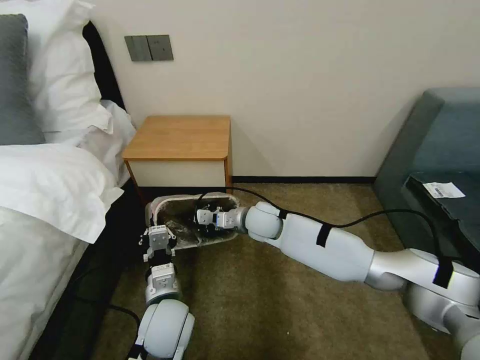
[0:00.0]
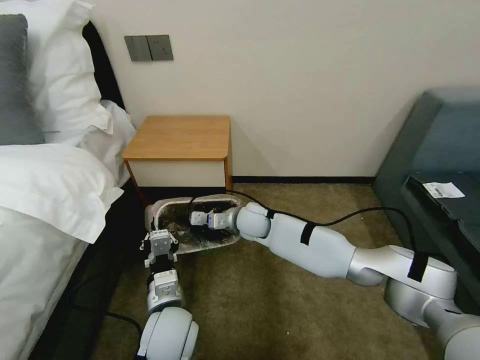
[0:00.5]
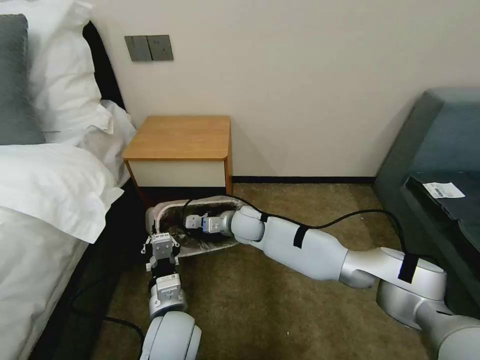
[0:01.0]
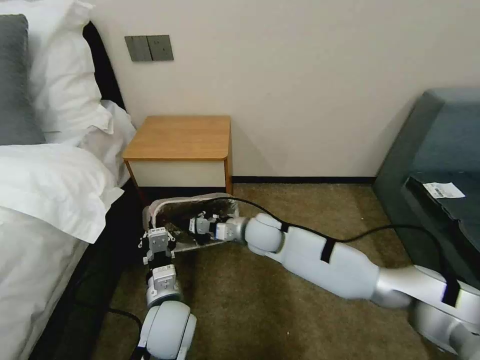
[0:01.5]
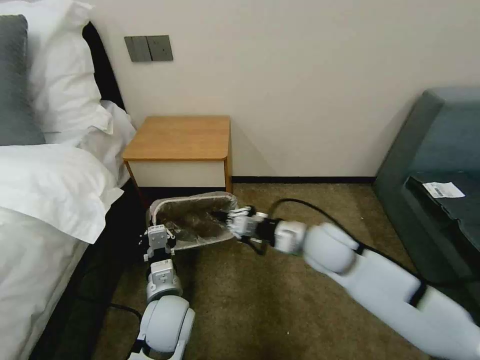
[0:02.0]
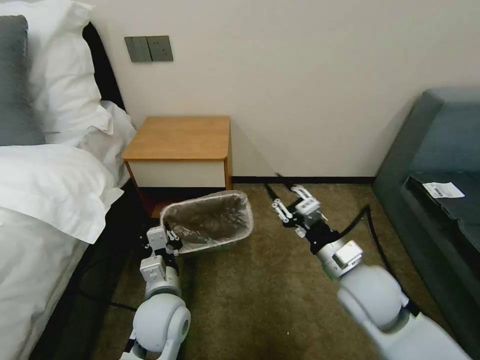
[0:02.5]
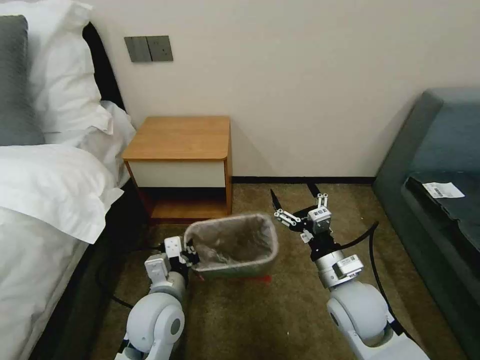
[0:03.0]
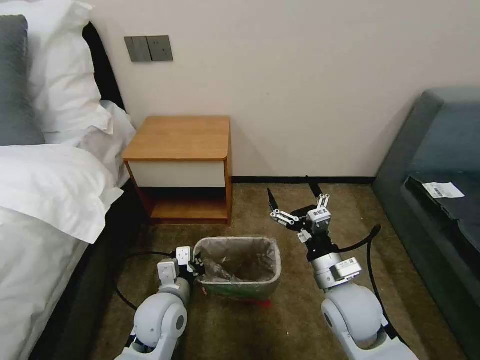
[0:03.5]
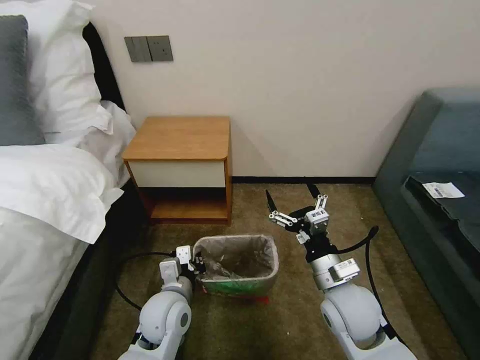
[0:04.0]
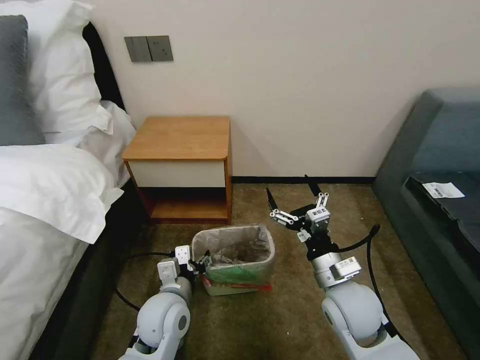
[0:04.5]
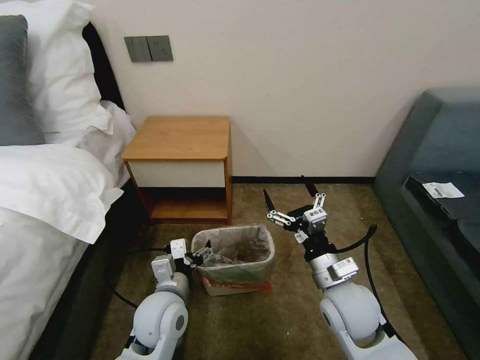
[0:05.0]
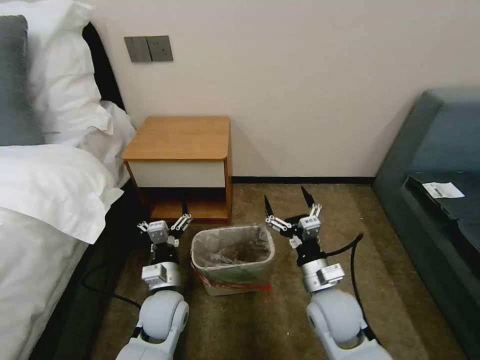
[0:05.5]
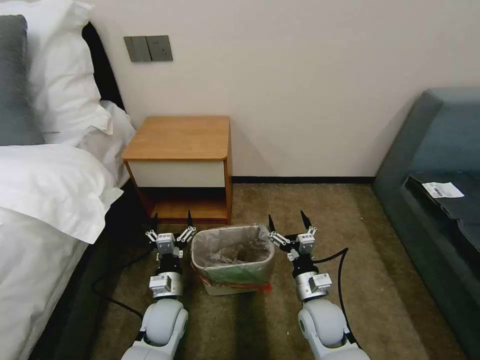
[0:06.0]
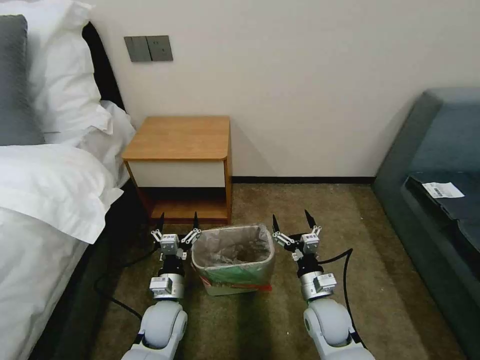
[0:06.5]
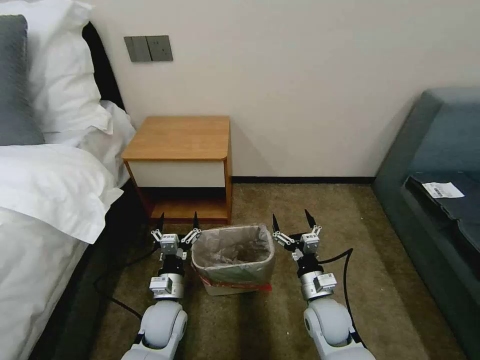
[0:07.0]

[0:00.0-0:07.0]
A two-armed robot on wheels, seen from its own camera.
Task of the whole recording: Pick up the garbage bag from the table and place it over the trash can.
0.0 to 2.0 s: The right gripper moves to the right and backward, some 15 cm.
2.0 to 3.5 s: The right gripper shifts some 10 cm backward, and opens its fingers.
3.5 to 5.0 s: The left gripper opens its fingers.
5.0 to 7.0 s: The grippers both shift downward by roughly 10 cm.

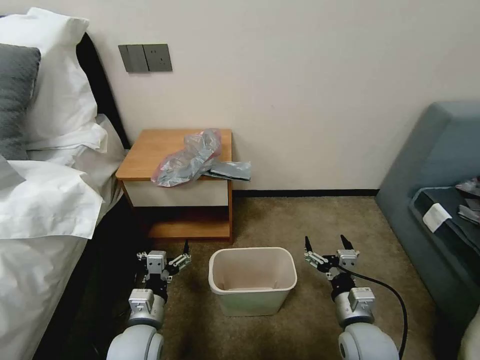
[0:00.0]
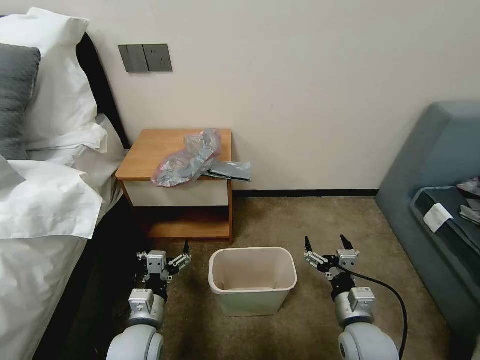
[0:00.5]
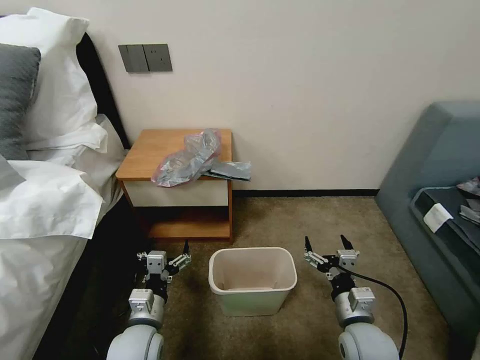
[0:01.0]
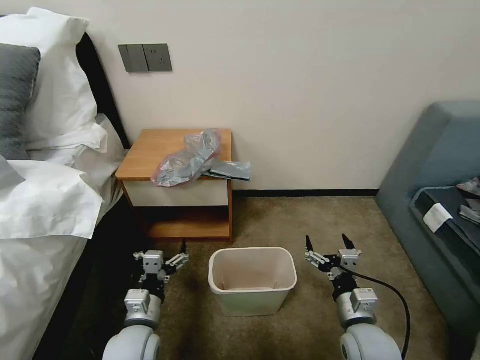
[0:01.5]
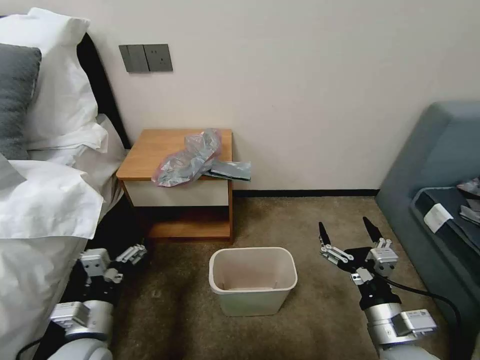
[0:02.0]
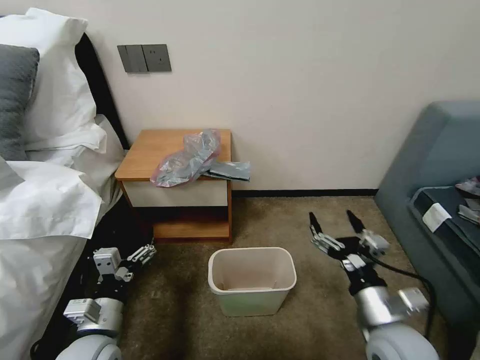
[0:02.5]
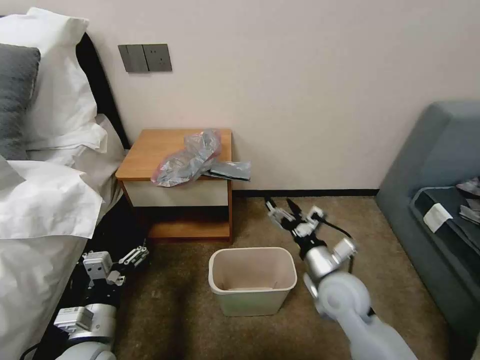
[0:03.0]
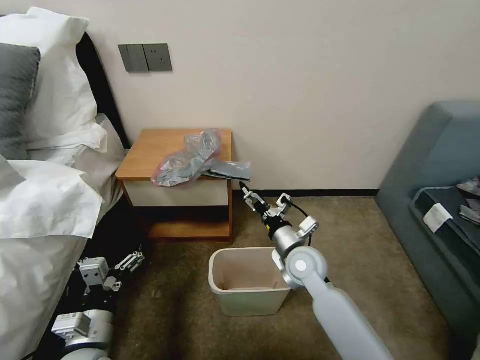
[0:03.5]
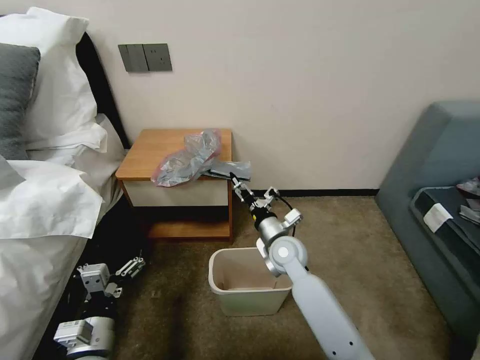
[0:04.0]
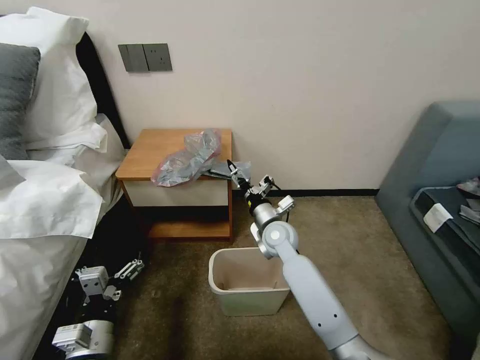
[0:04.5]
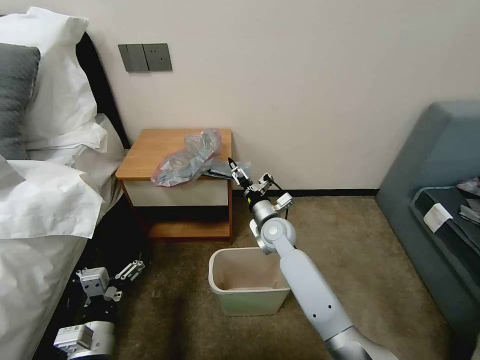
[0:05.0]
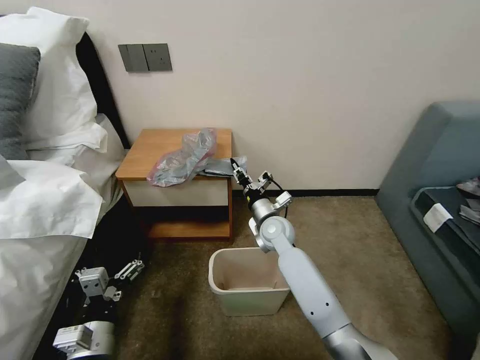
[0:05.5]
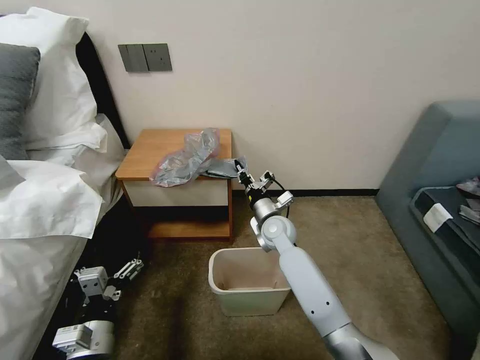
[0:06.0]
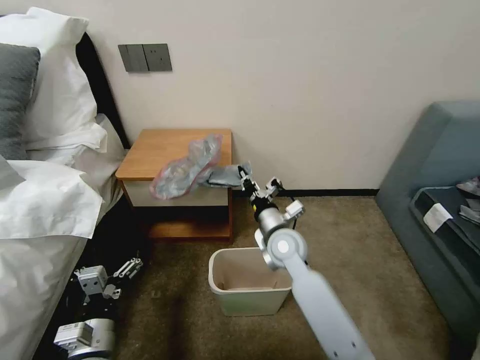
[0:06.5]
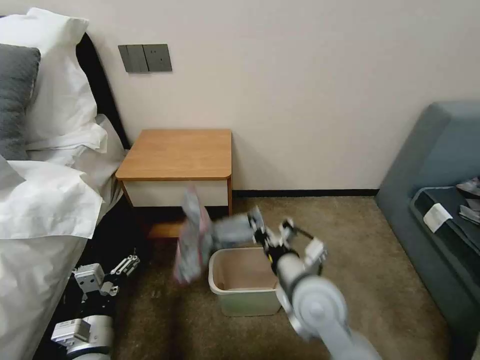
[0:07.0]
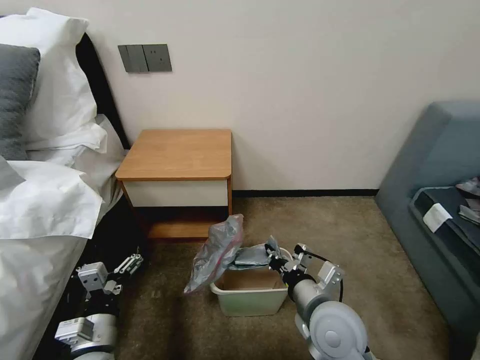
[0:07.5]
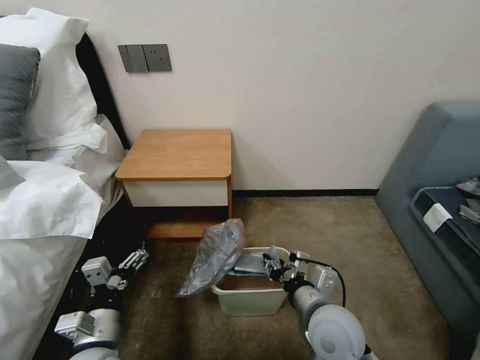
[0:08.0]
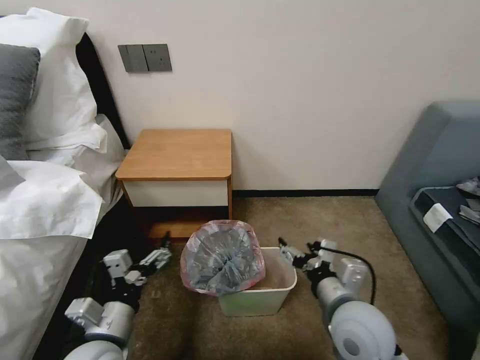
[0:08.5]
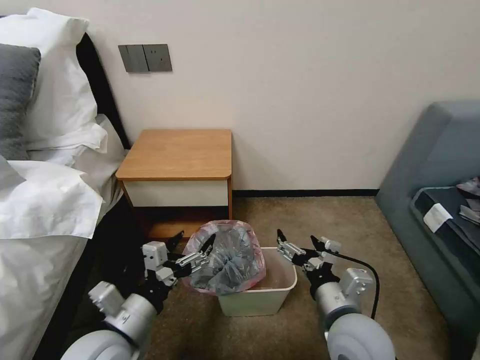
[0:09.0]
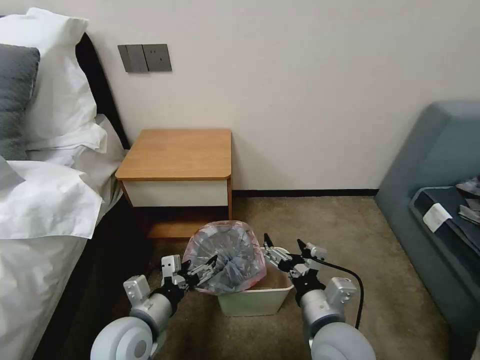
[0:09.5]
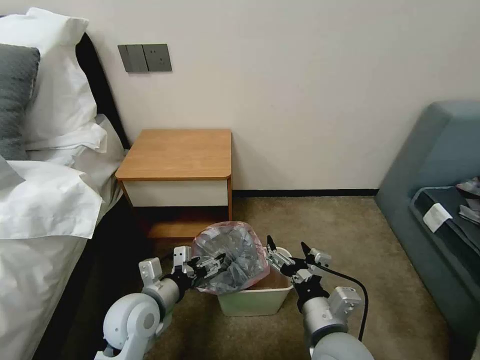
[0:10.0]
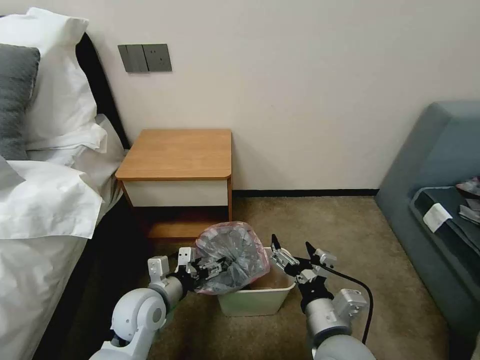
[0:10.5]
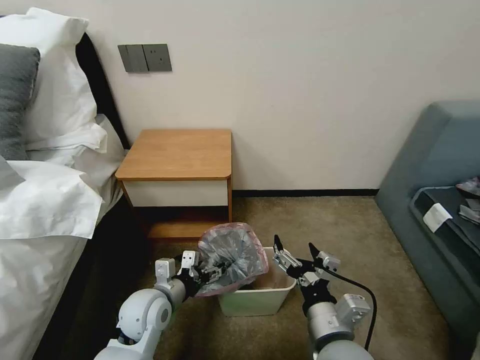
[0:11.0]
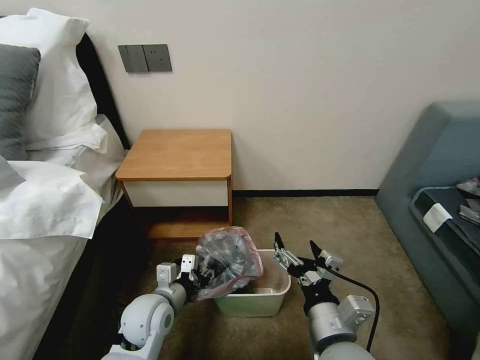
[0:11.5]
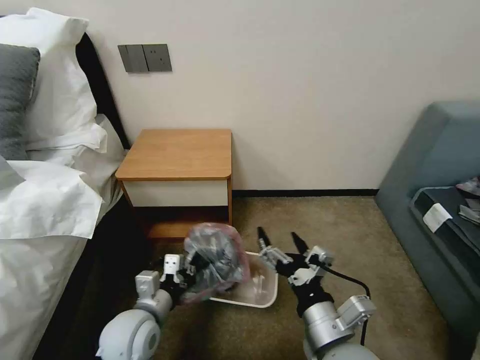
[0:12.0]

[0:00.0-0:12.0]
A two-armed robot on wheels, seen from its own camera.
Task of the whole recording: Pick up the garbage bag from the table and place it over the trash can.
2.0 to 4.0 s: The right gripper shifts about 30 cm forward and to the left.
4.0 to 6.0 s: The right gripper heads forward, covering some 5 cm, and closes up.
6.0 to 8.0 s: The right gripper travels backward by about 25 cm.
8.0 to 10.0 s: The right gripper shifts approximately 5 cm backward, and opens up; the left gripper is displaced forward by some 10 cm.
10.0 to 12.0 s: The left gripper closes.

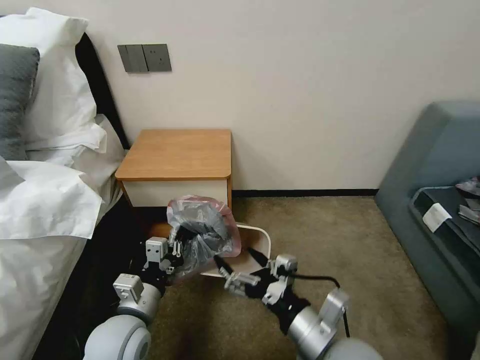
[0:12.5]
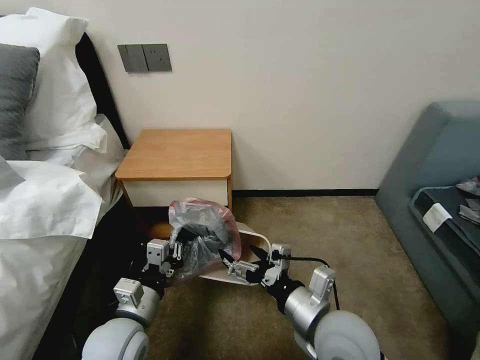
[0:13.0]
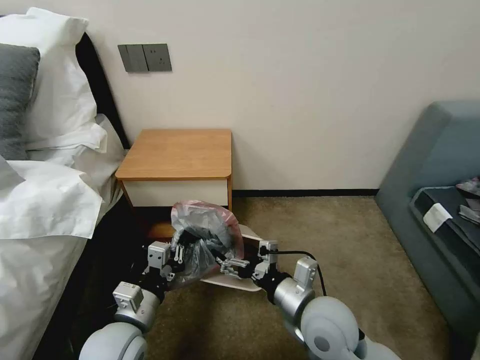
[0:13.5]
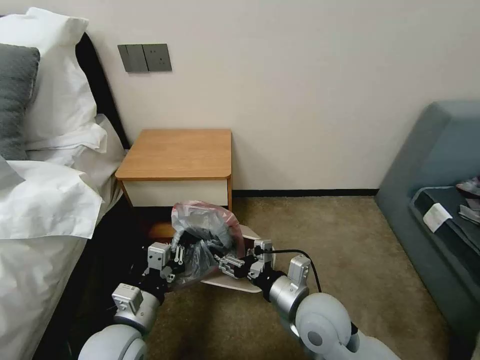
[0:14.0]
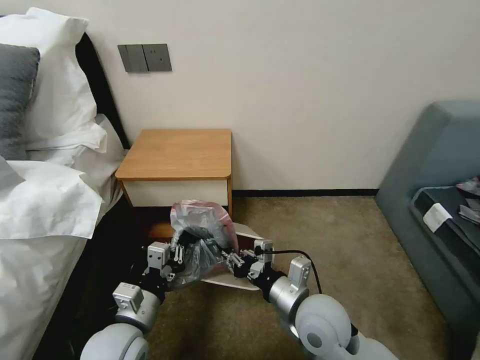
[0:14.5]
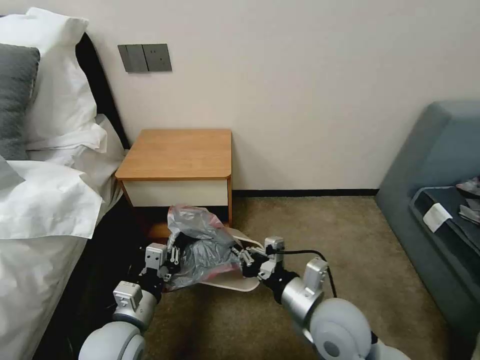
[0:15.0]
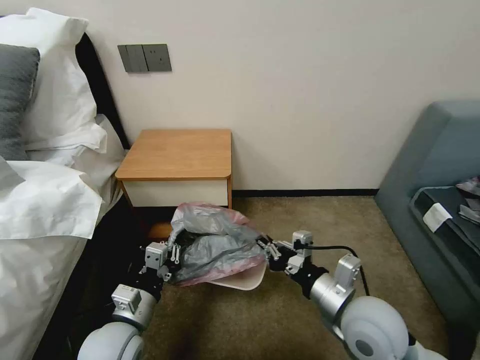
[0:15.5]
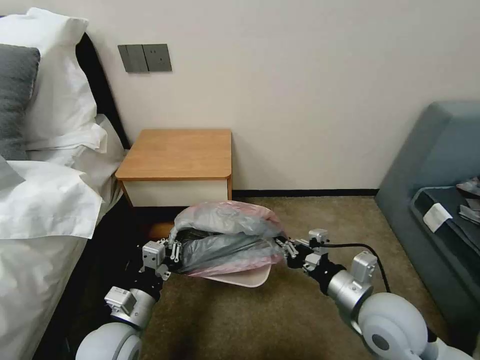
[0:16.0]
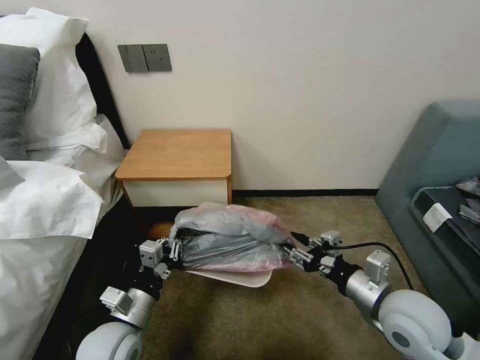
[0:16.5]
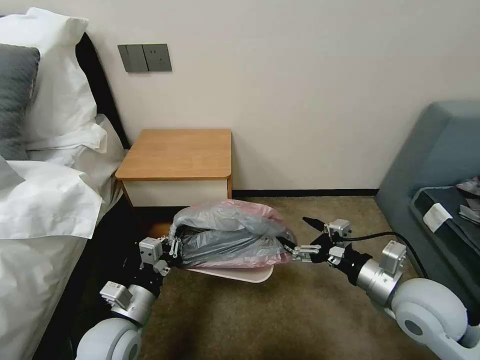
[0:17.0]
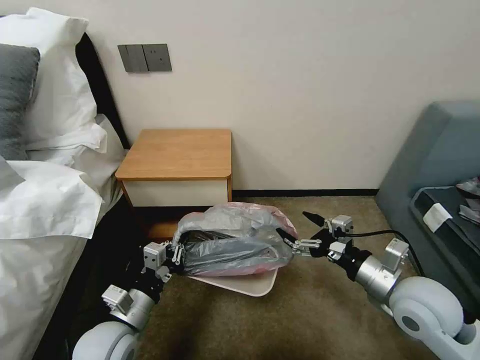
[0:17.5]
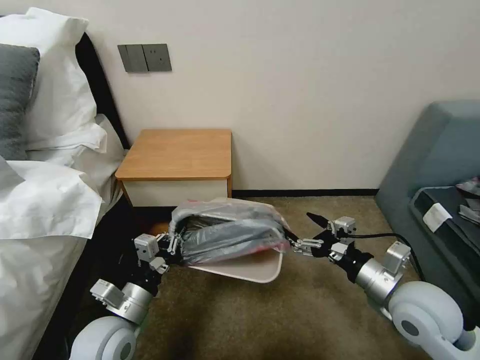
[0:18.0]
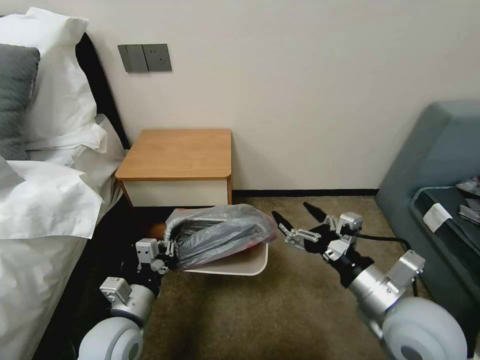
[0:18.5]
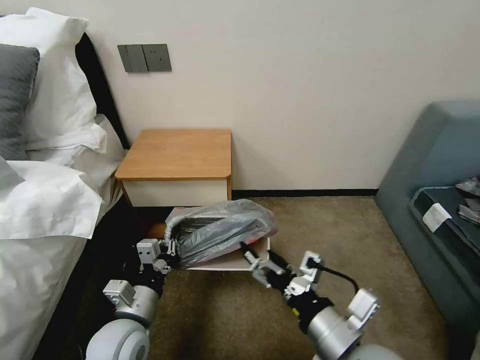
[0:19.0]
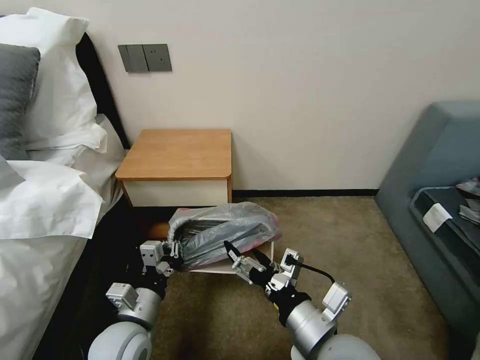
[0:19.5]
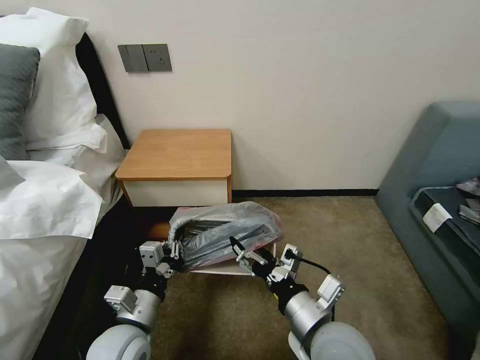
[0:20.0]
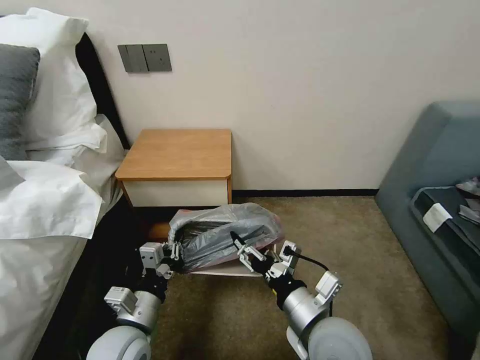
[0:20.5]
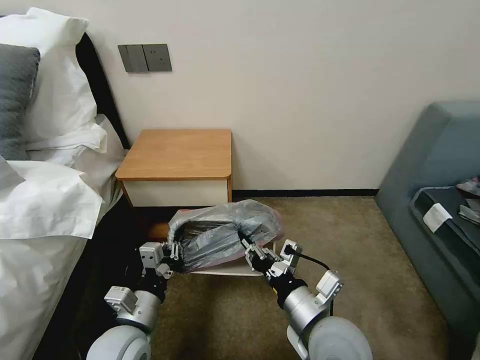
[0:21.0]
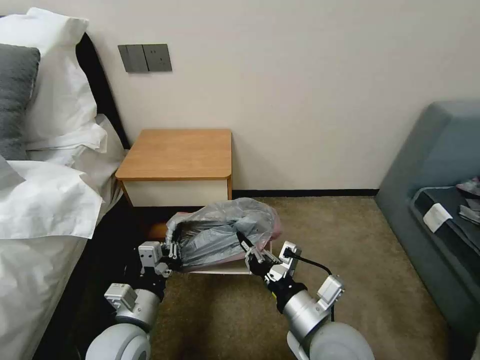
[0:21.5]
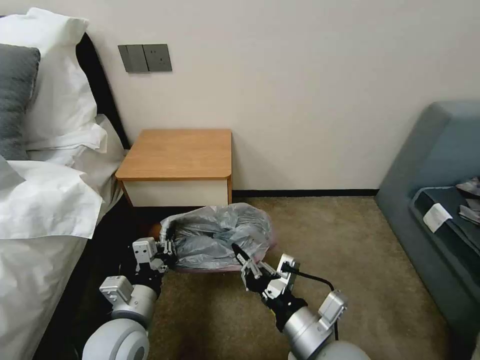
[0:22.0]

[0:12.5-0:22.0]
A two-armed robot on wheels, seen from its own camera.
Task of the whole recording: Pick up the garbage bag from the table and place it over the trash can.
12.5 to 14.5 s: The right gripper travels forward by roughly 10 cm, and closes.
14.5 to 16.5 s: The right gripper shifts roughly 15 cm to the right.
16.5 to 18.0 s: The right gripper opens up.
18.0 to 20.0 s: The right gripper goes roughly 15 cm to the left.
20.0 to 22.0 s: The right gripper closes its fingers.
